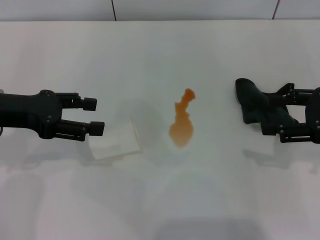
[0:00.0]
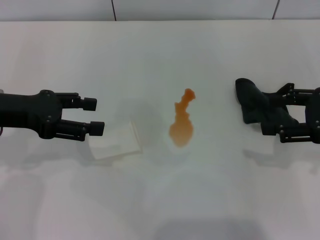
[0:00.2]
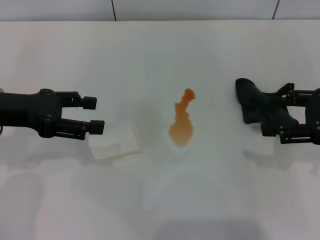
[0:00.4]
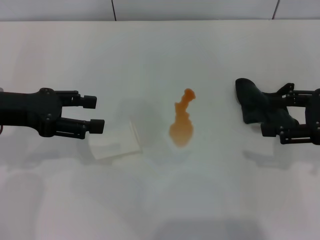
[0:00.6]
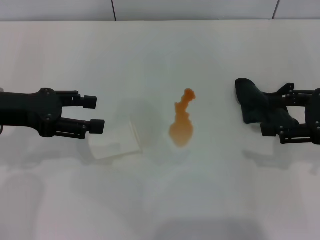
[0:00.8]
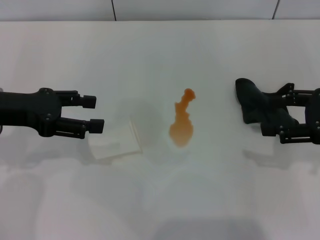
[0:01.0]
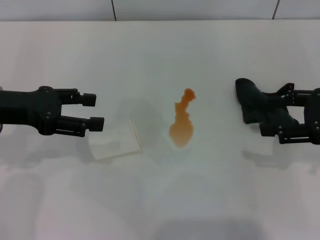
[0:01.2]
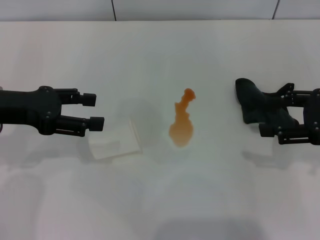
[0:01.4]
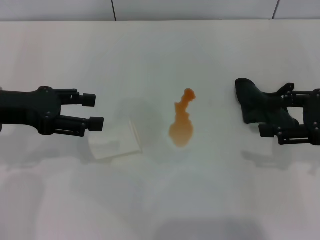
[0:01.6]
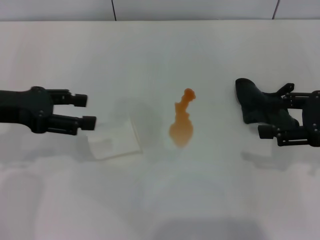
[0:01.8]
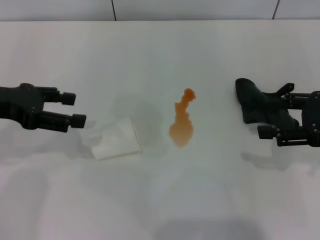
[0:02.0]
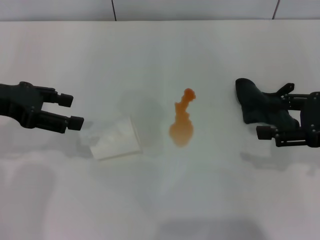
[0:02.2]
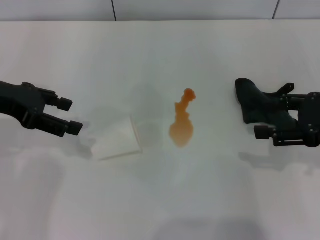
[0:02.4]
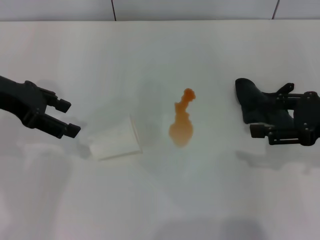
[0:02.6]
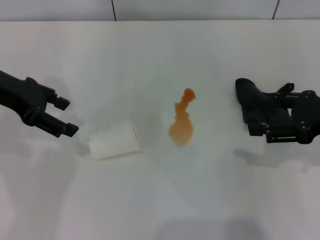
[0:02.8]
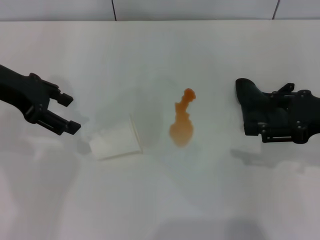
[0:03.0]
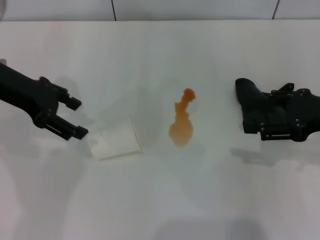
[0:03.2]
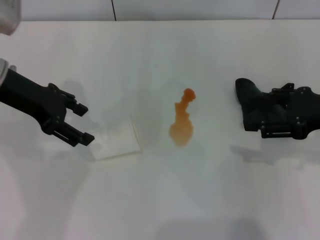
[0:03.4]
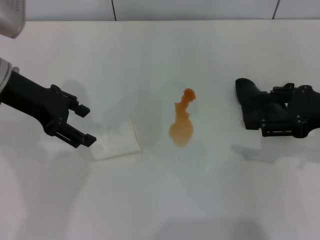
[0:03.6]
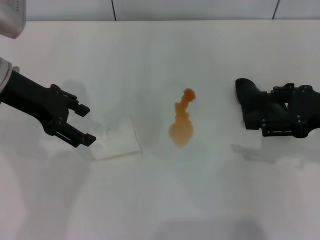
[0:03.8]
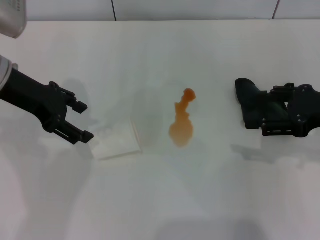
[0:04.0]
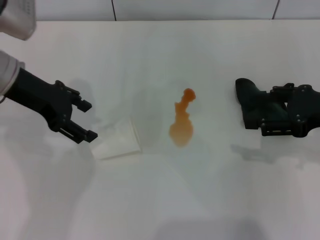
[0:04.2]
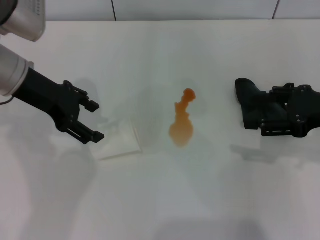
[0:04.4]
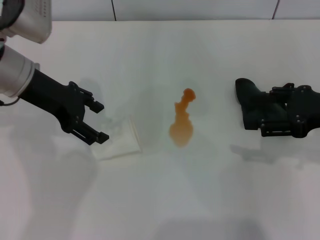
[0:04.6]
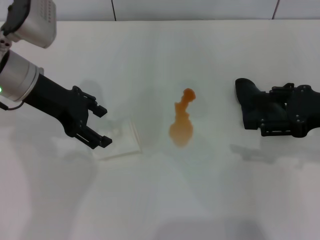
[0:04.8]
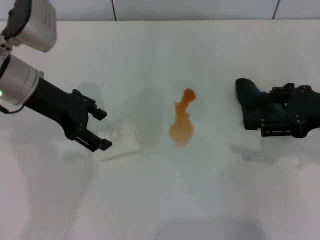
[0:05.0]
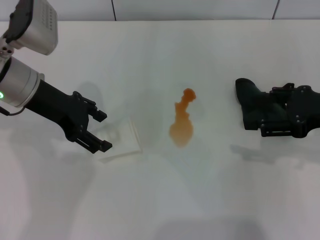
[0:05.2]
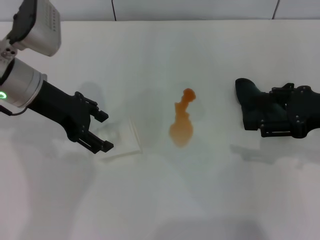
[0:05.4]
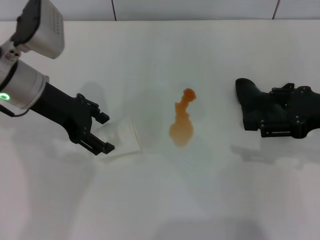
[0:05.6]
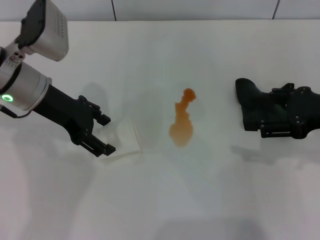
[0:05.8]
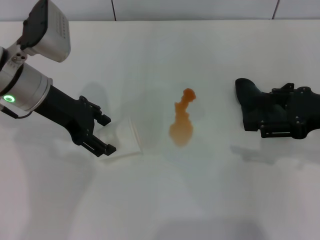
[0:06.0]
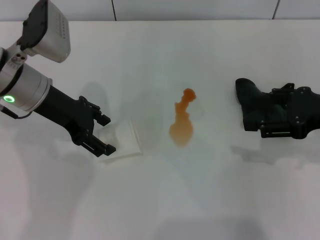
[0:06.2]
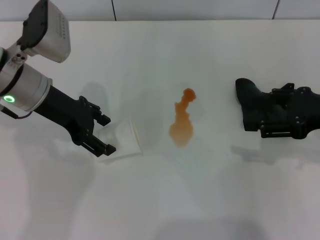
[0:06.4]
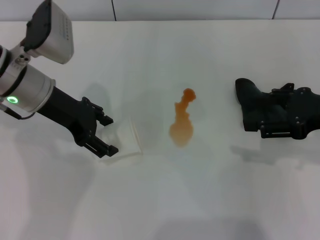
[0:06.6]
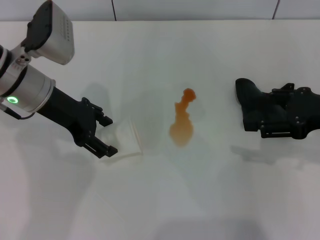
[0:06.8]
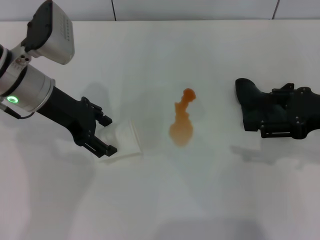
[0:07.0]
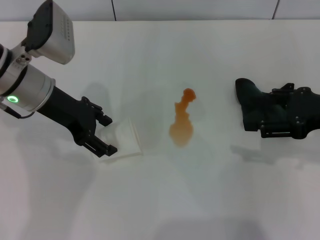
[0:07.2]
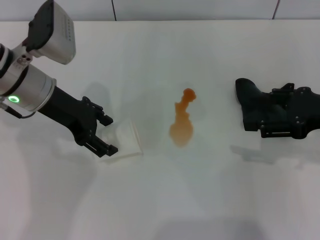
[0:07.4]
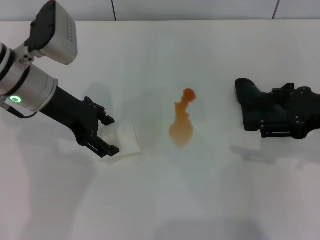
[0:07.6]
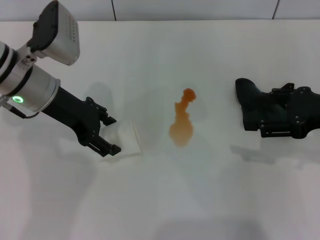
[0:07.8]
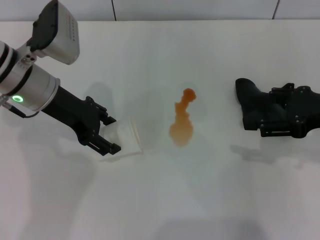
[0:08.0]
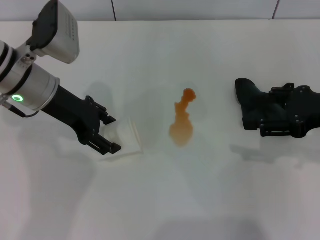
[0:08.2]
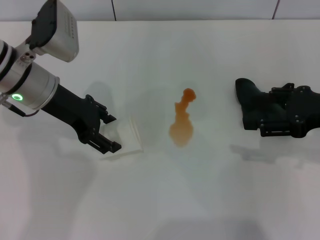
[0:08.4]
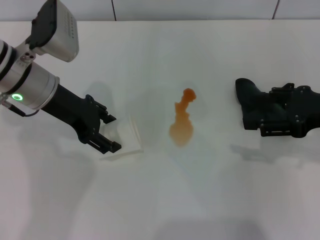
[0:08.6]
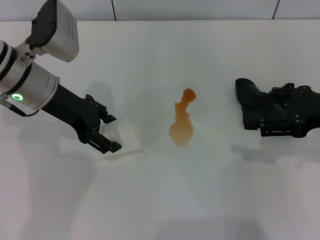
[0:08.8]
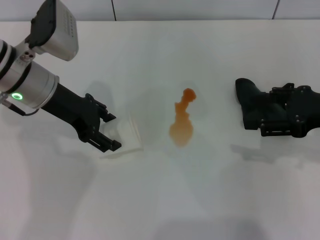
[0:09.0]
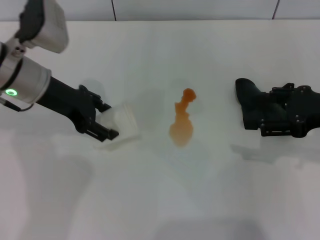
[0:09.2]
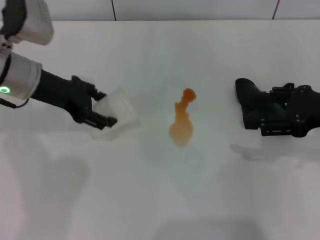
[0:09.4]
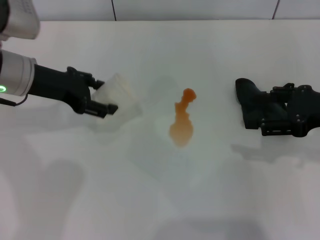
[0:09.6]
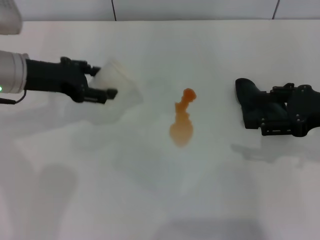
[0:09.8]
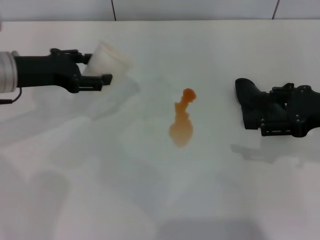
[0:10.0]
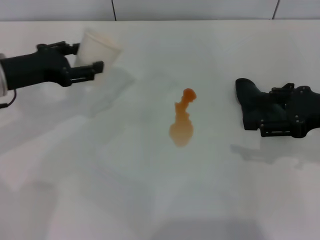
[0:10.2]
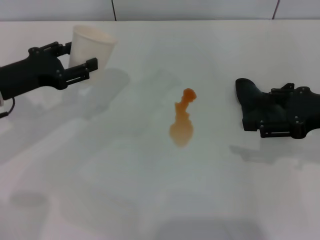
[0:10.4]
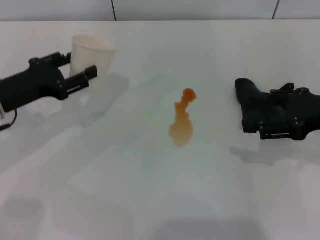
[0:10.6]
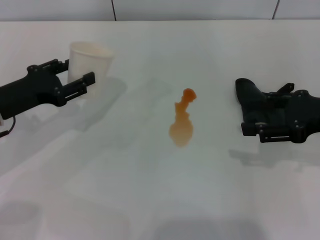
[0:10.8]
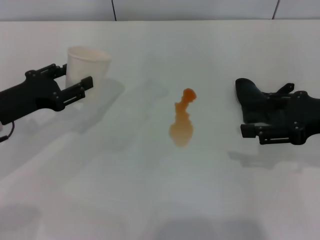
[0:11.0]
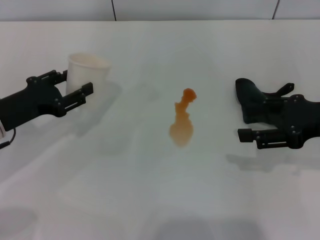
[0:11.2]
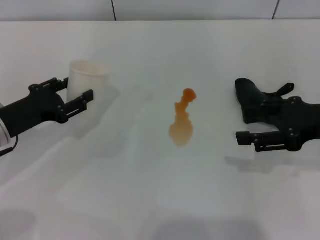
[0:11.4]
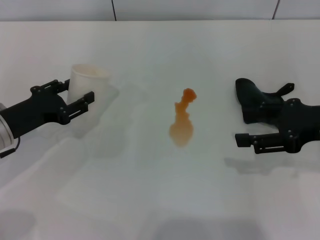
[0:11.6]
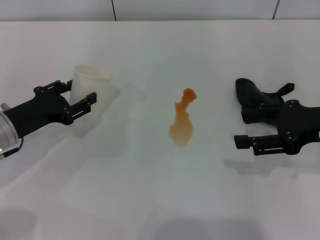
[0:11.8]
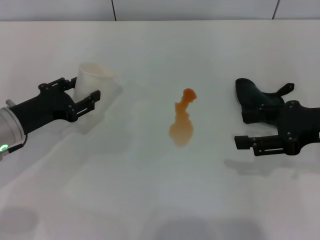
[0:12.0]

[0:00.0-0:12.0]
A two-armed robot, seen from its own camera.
Step, 0:00.0 to 0:08.6: Grasp the paper cup with the left gripper.
0:00.0 to 0:01.6: Both grippers stay put.
0:01.6 to 0:03.0: The left gripper travels forward by about 5 cm.
0:03.0 to 0:04.4: The left gripper ends up roughly 5 cm from where it was.
0:04.4 to 0:06.0: There are only small adjustments of the grippers.
0:06.0 to 0:07.6: Both grippers stay put.
0:07.6 to 0:09.0: The left gripper closes its fingers.
0:09.0 to 0:10.4: The left gripper is displaced to the left by roughly 10 cm.
0:10.4 to 0:12.0: The left gripper is displaced downward by some 5 cm.

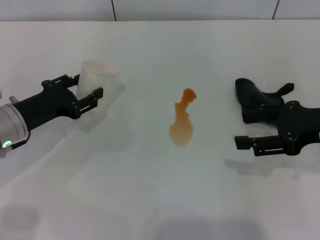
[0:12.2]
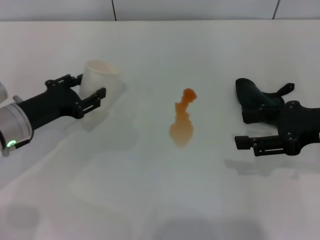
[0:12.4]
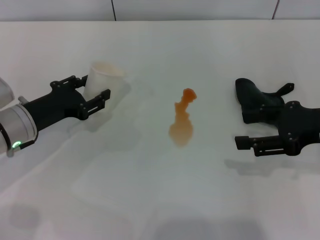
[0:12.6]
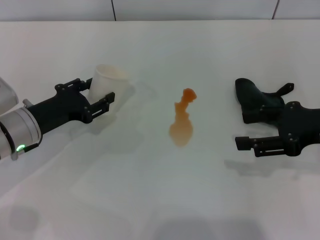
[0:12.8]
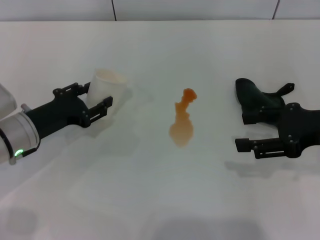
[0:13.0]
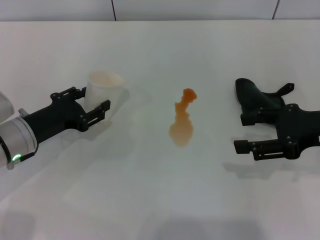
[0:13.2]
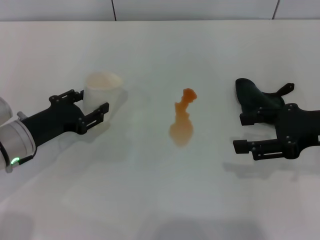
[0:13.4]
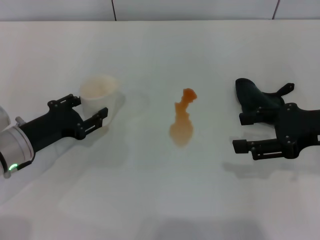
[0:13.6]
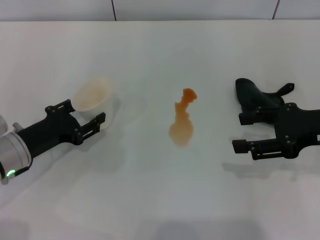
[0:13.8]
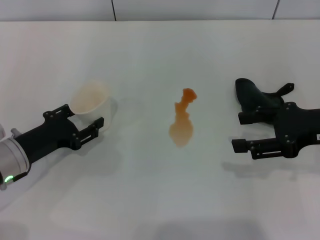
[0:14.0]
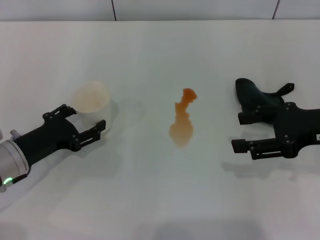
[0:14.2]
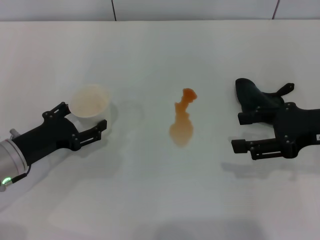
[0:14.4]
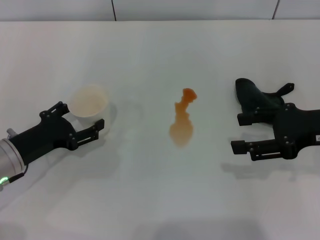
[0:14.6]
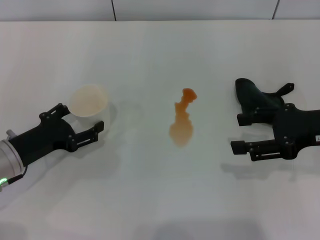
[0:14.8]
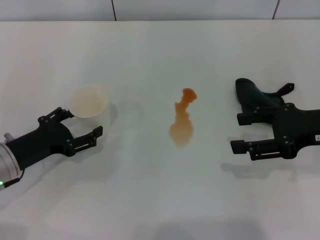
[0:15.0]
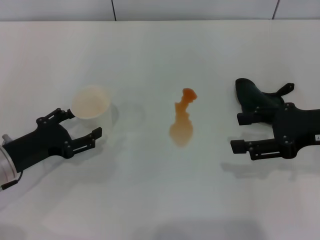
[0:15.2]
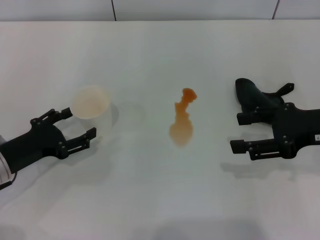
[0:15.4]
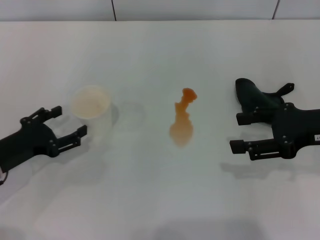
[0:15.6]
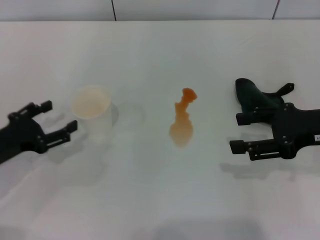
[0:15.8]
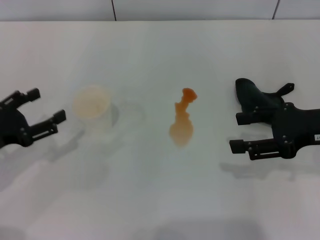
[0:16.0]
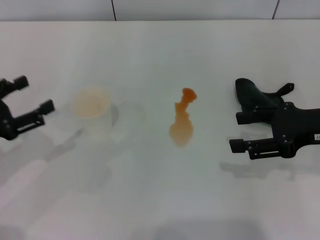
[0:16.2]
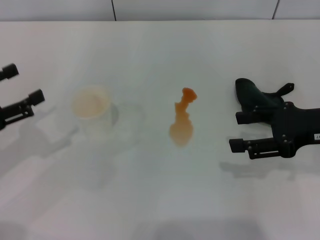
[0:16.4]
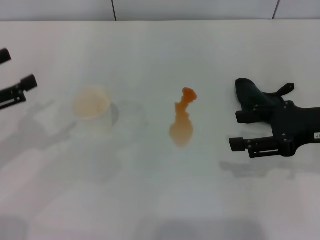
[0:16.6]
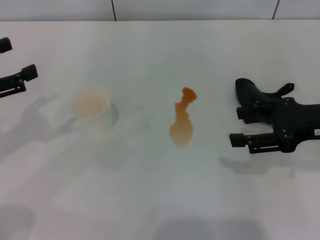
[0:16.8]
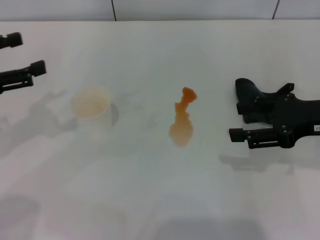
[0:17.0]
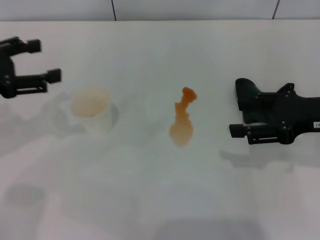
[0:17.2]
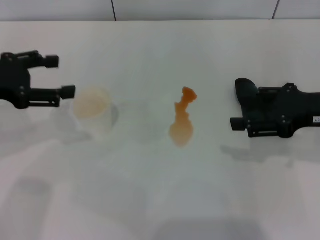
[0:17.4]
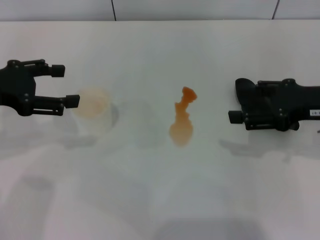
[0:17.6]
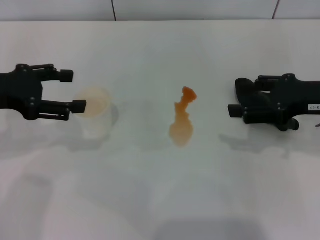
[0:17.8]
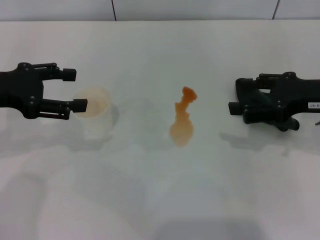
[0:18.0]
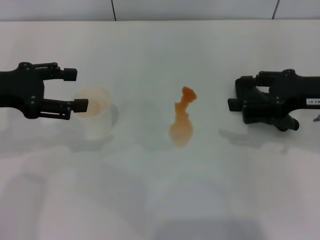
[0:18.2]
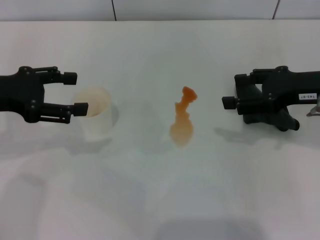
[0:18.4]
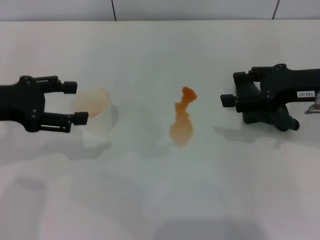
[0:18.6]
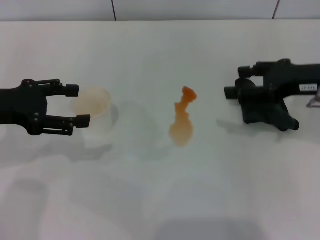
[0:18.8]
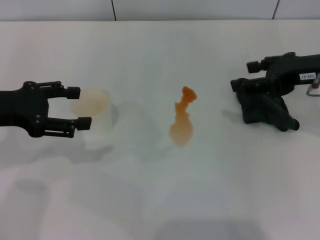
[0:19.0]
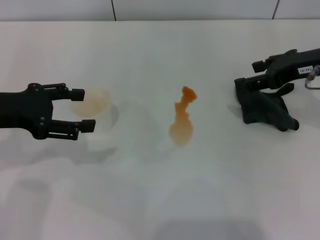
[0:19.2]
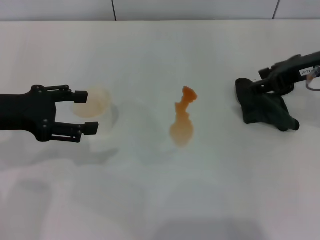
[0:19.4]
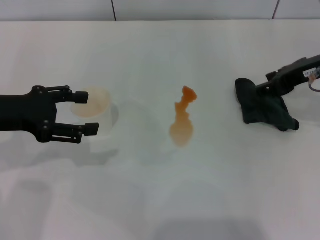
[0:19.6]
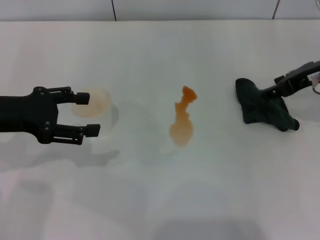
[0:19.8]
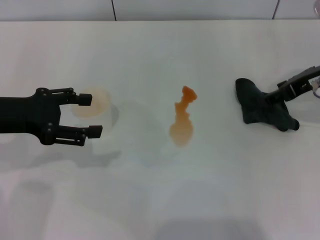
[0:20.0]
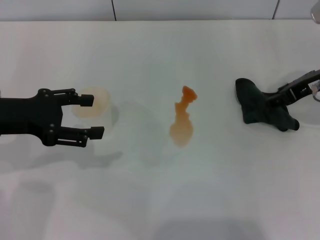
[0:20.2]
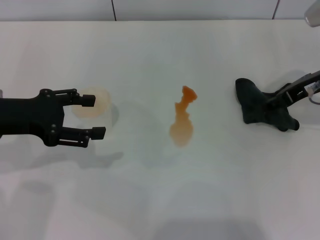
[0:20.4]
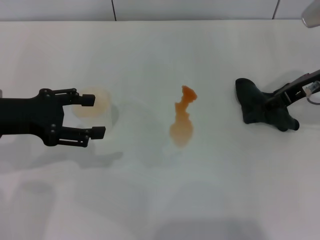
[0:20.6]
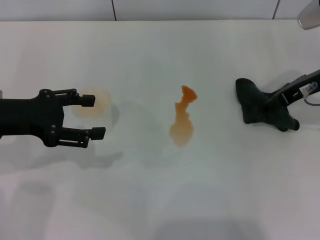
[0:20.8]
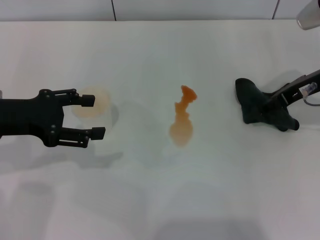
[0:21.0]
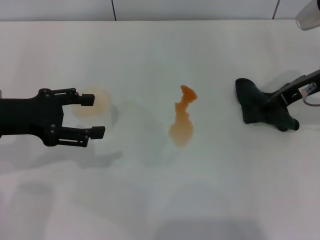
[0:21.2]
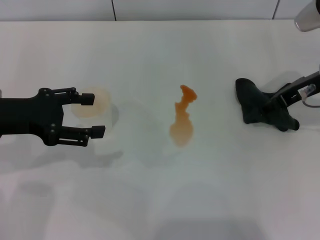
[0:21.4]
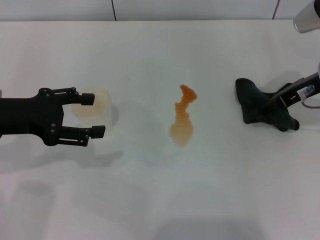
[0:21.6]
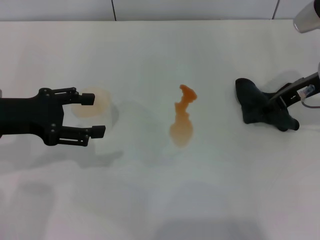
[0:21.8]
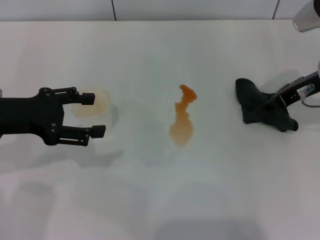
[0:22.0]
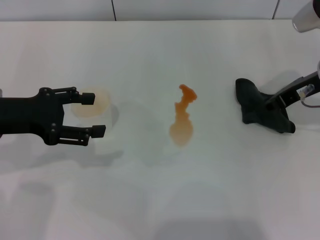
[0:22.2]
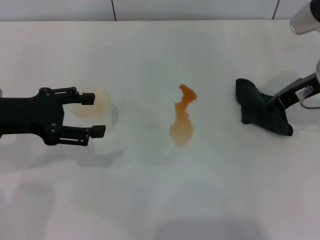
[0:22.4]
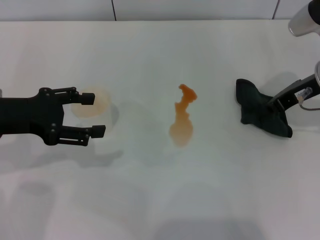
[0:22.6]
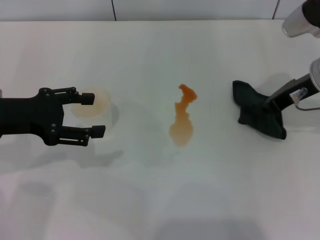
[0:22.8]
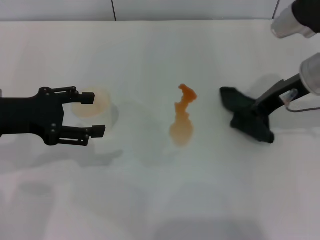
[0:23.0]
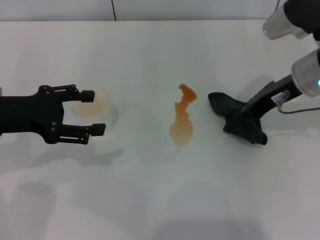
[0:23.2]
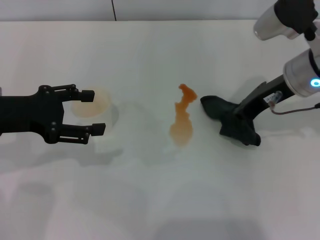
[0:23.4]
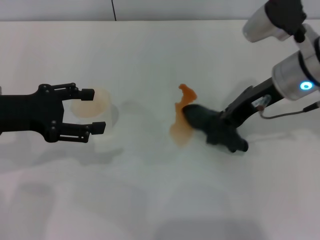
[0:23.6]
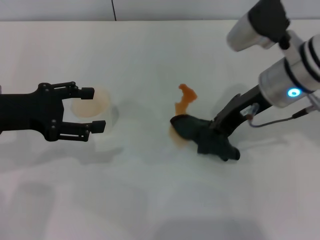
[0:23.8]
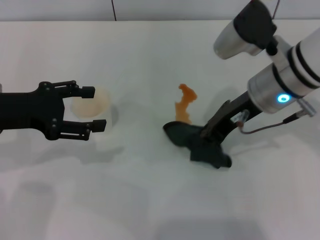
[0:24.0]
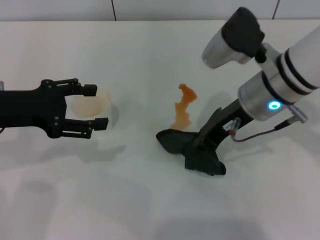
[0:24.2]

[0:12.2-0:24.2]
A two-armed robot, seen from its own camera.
Step, 0:12.2 to 0:15.6: Stand the paper cup upright with the left gripper.
Step, 0:15.8 to 0:23.0: Grasp the rag with the right gripper.
0:12.2 to 0:13.8: The grippers move only a little.
0:13.8 to 0:15.2: The left gripper opens.
0:15.2 to 0:16.6: The left gripper shifts about 15 cm upward and to the left.
0:16.6 to 0:18.2: The left gripper is displaced forward by about 5 cm.
0:18.2 to 0:19.8: The right gripper shifts approximately 5 cm forward.
0:19.8 to 0:21.2: The grippers stay close to where they were, moving slightly.
0:21.2 to 0:22.6: The right gripper closes its fingers.
0:22.6 to 0:24.2: The right gripper shifts roughly 10 cm to the left.
